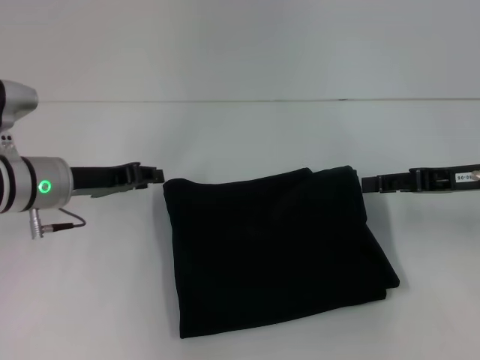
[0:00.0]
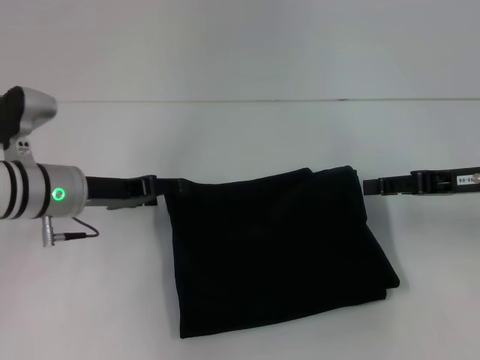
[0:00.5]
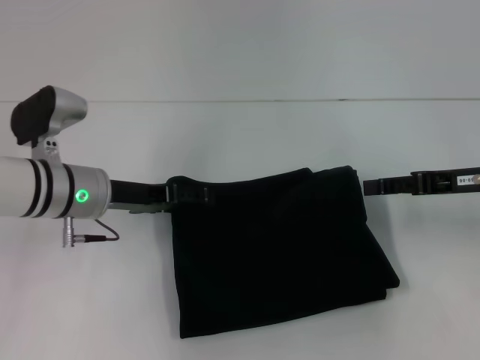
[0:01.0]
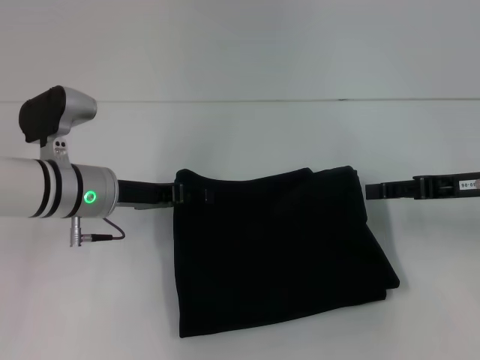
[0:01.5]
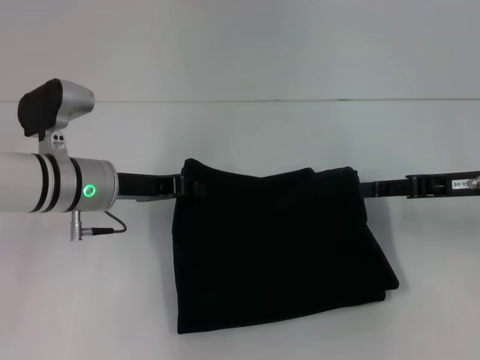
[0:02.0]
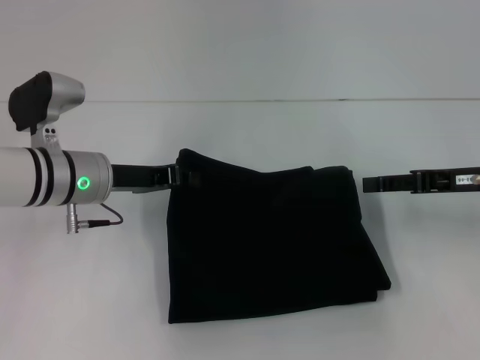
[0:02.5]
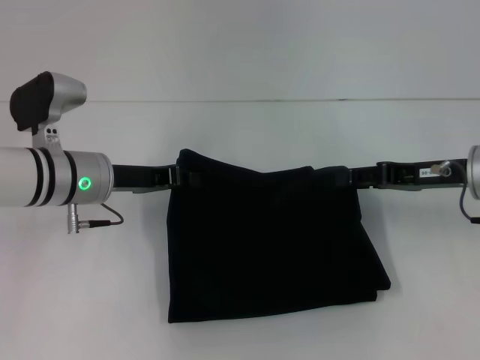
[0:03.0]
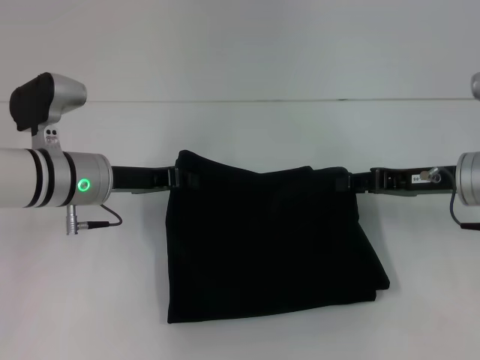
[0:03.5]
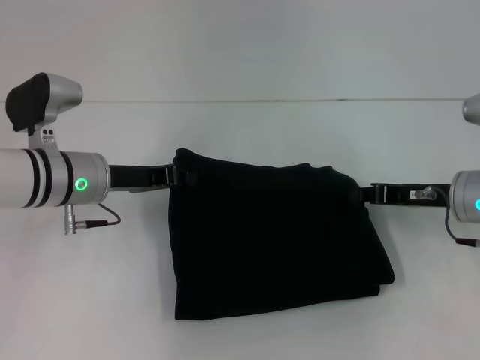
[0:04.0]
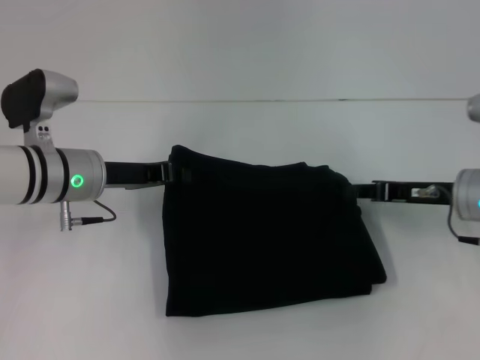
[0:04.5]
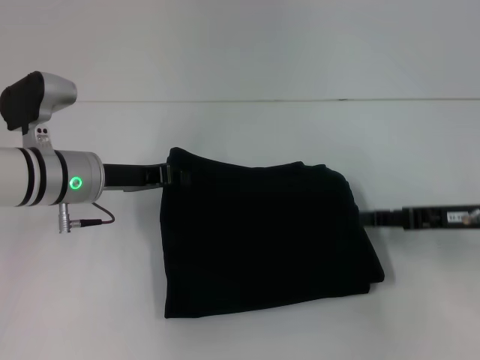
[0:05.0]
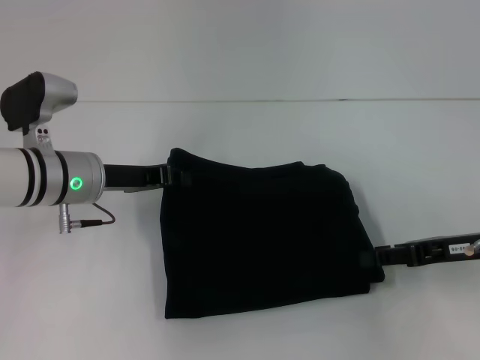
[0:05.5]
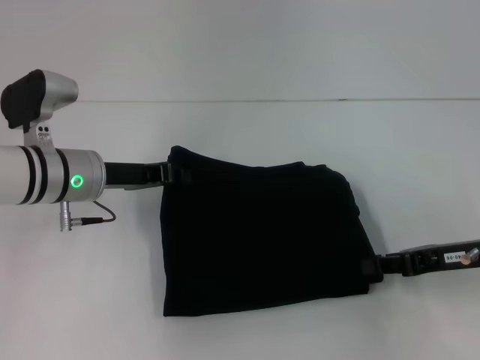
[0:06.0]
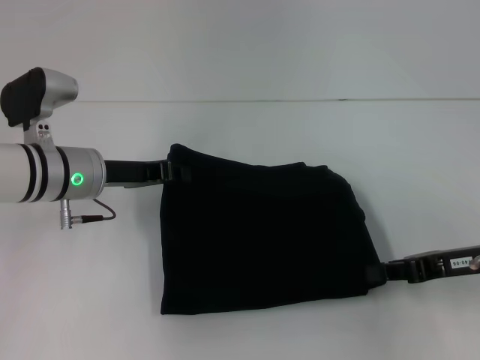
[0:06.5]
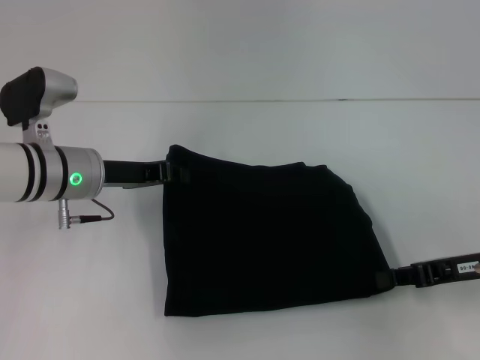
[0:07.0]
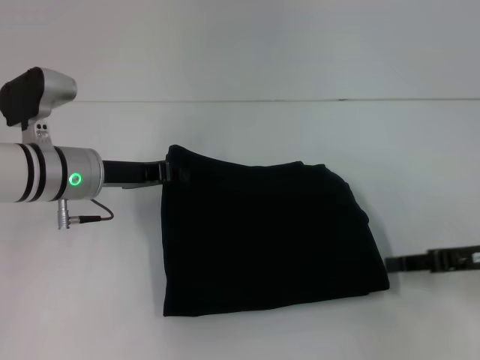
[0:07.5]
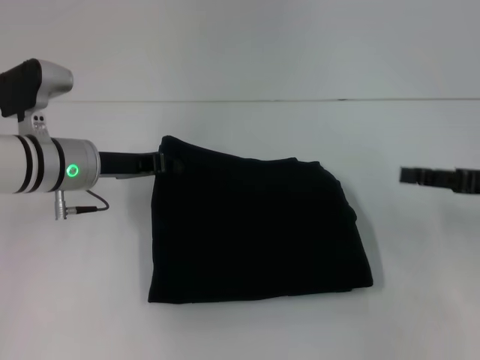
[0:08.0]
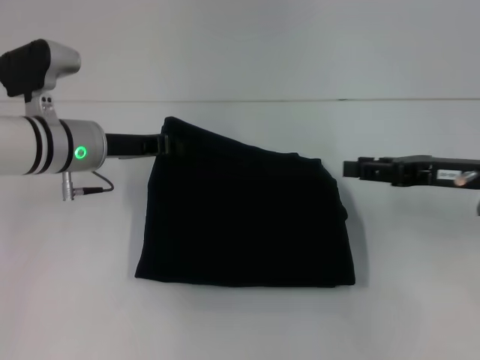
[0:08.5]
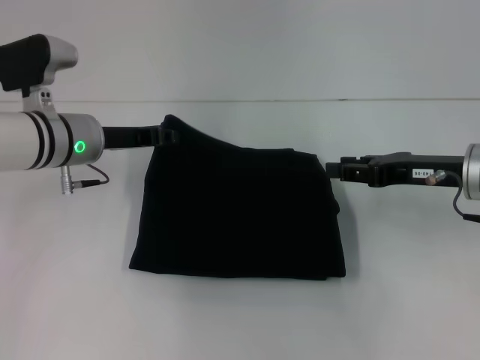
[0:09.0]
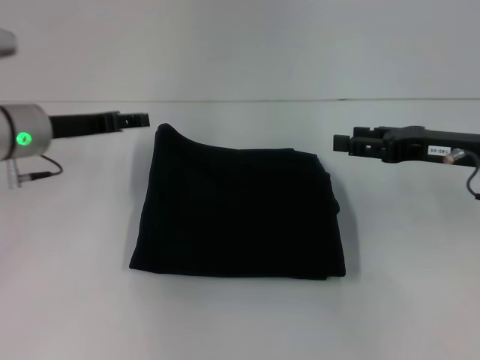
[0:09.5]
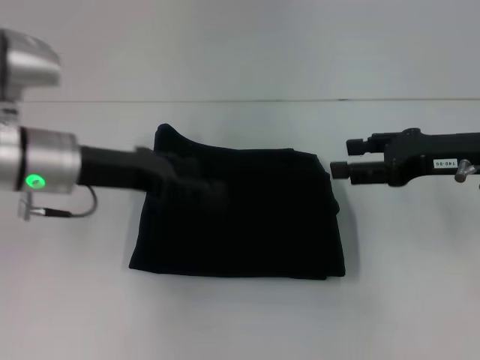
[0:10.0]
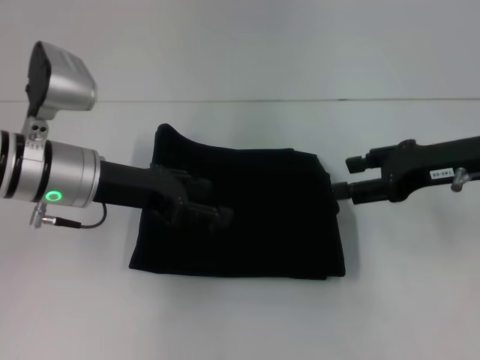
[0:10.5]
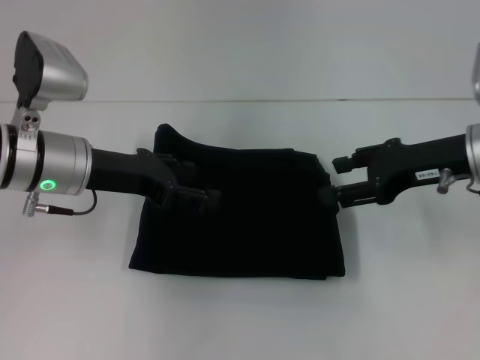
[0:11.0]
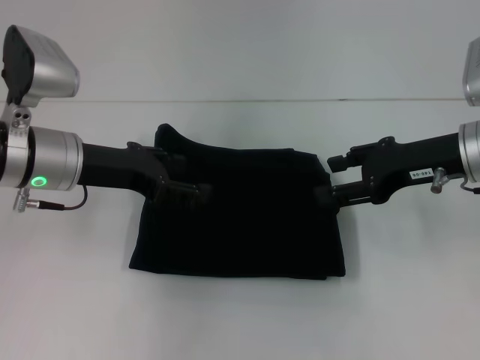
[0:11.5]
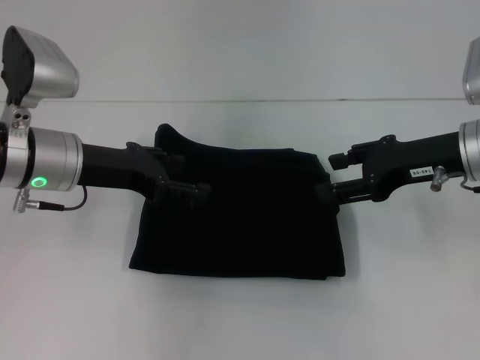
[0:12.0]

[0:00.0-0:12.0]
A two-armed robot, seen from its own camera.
0.0 to 2.0 s: The left gripper opens and closes again.
2.0 to 4.0 s: The right gripper changes place by roughly 5 cm, and closes its fingers.
4.0 to 6.0 s: The right gripper heads backward, covering some 5 cm.
6.0 to 8.0 s: The right gripper shifts by some 5 cm.
8.0 to 10.0 s: The right gripper is displaced to the left by approximately 5 cm. Meanwhile the left gripper goes approximately 5 cm upward, and opens its fingers.
10.0 to 12.0 s: The grippers stay close to where they were, moving slightly.

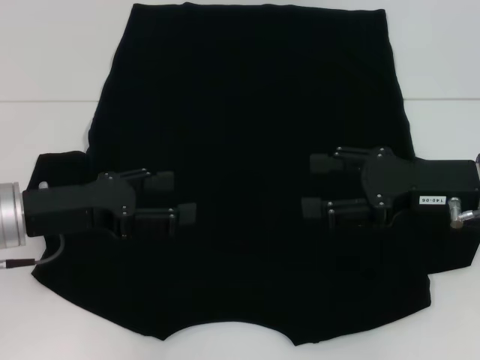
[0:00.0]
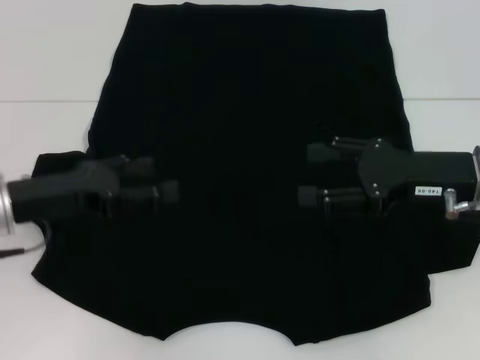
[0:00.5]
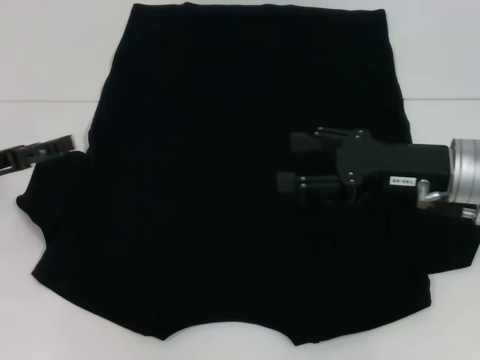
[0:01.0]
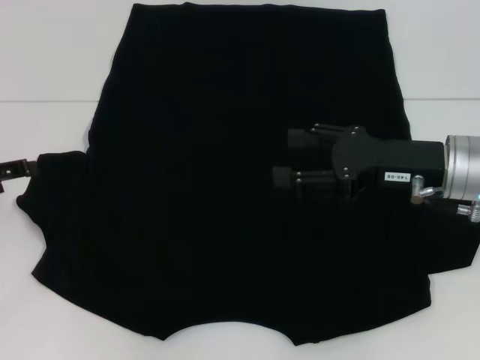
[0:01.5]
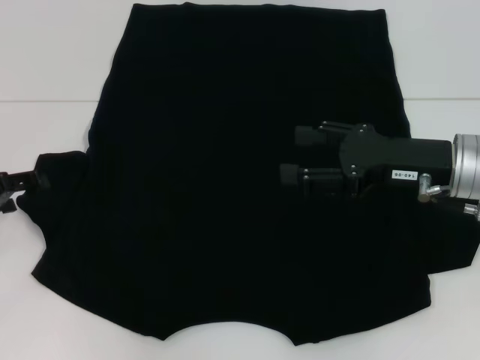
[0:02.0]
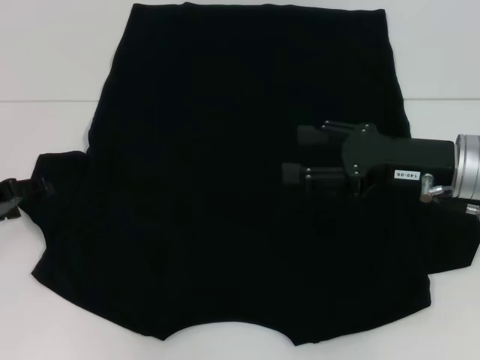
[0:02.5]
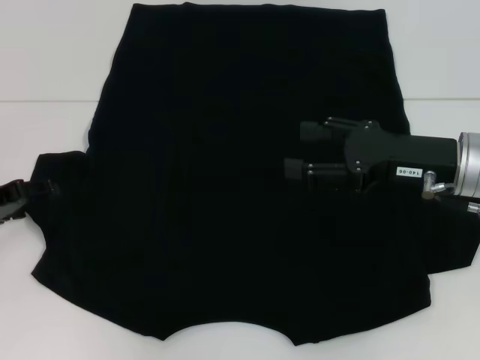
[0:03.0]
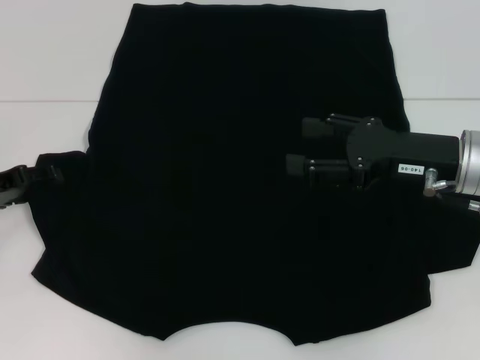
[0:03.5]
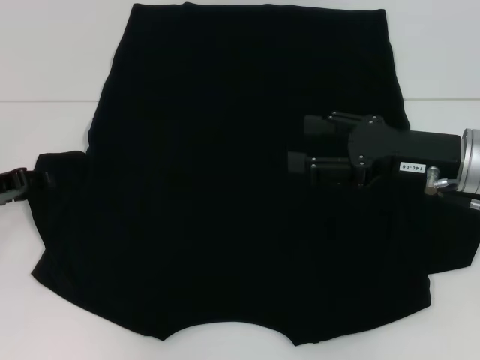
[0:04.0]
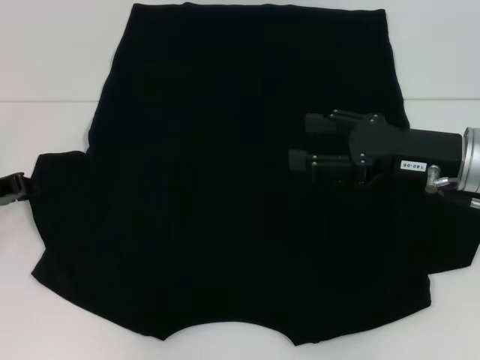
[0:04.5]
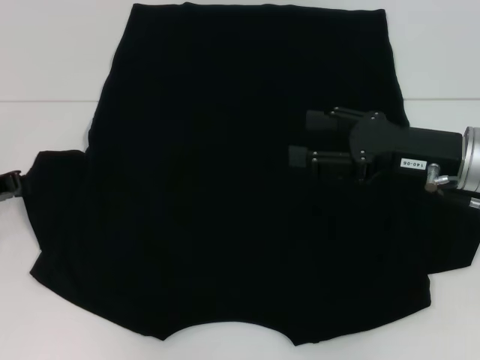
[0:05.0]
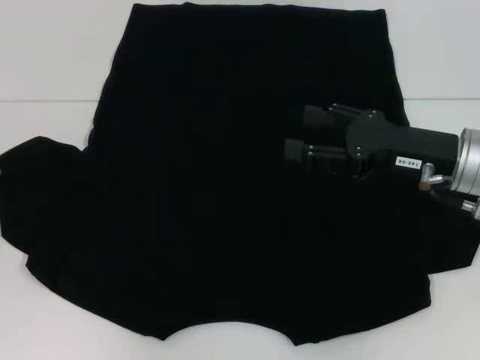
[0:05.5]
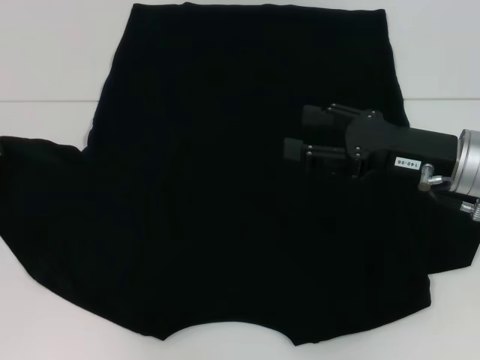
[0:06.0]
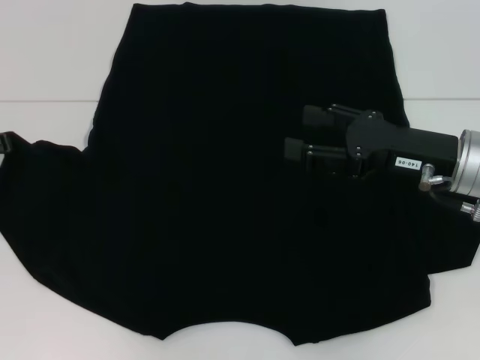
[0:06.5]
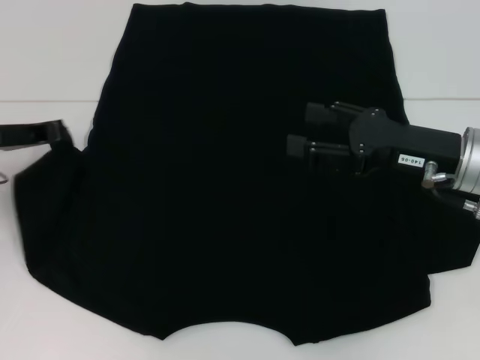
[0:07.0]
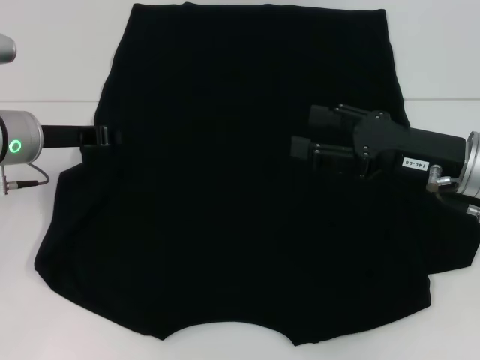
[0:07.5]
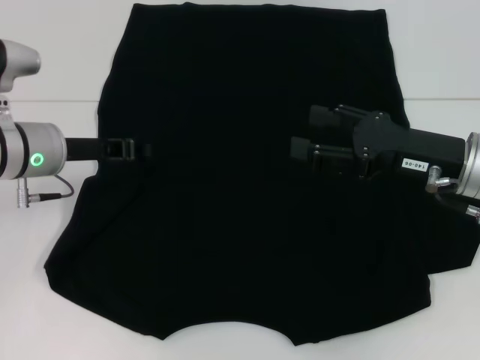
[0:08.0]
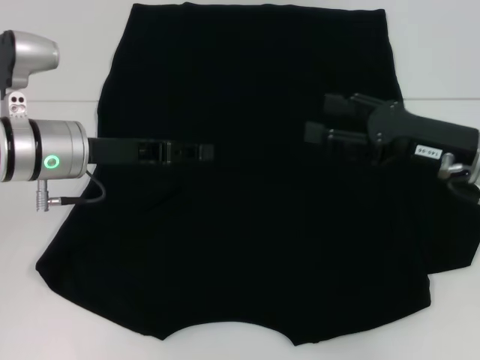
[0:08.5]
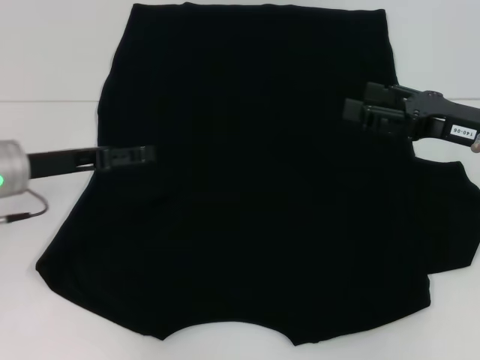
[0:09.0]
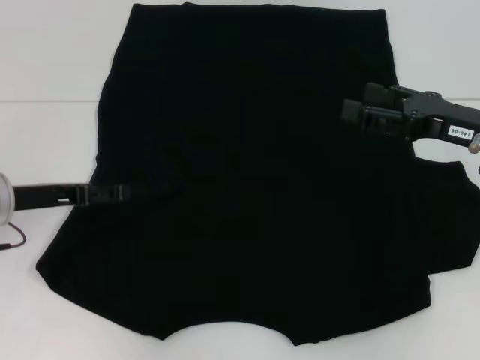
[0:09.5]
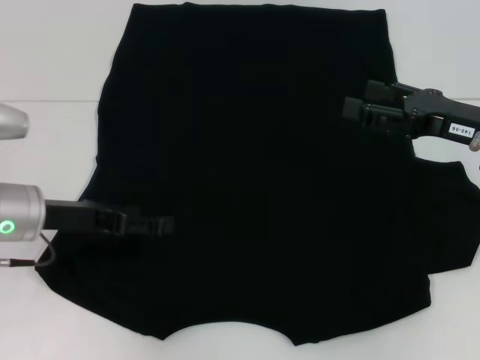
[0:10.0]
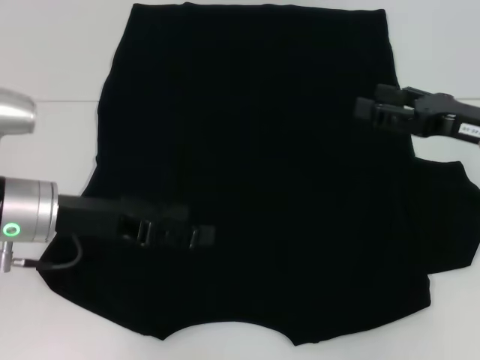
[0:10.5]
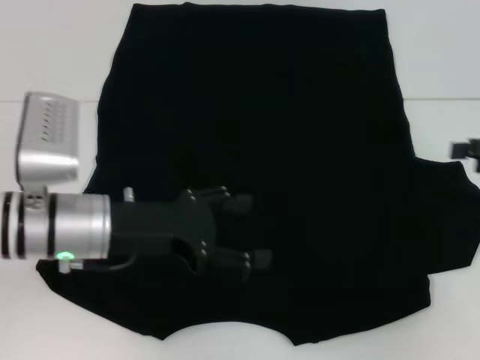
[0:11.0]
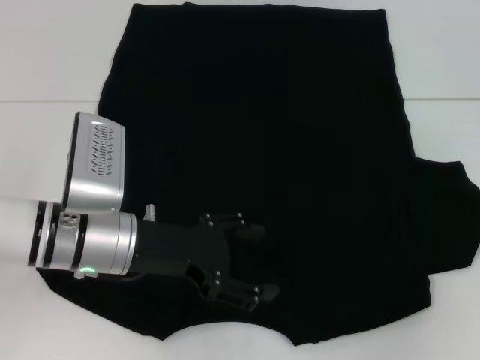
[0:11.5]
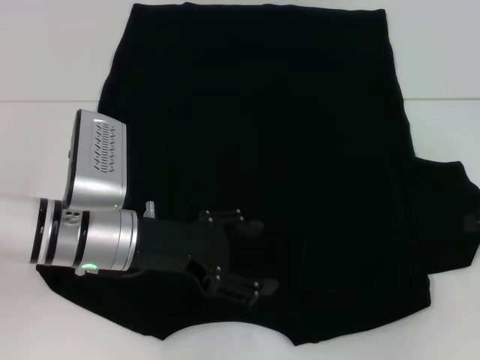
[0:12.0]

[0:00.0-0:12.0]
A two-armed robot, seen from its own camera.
Step, 0.0 to 8.5 s: Fold the bottom left sleeve with your left hand.
0.0 to 2.0 s: The left gripper moves to the left, roughly 10 cm.
2.0 to 4.0 s: The grippers make only small movements.
4.0 to 6.0 s: The left gripper closes.
6.0 to 8.0 s: The left gripper travels to the right by approximately 10 cm.
8.0 to 10.0 s: The left gripper moves backward, approximately 5 cm, and opens its fingers.
10.0 to 12.0 s: The grippers both shift to the right by about 10 cm.

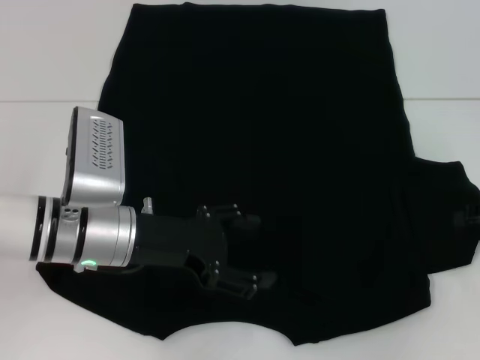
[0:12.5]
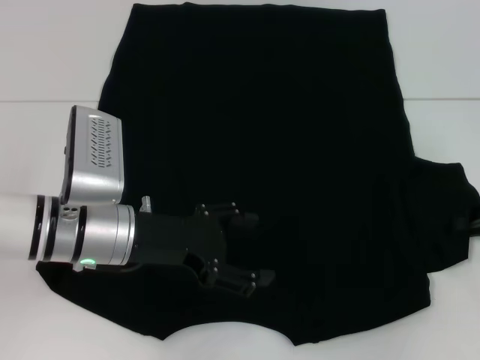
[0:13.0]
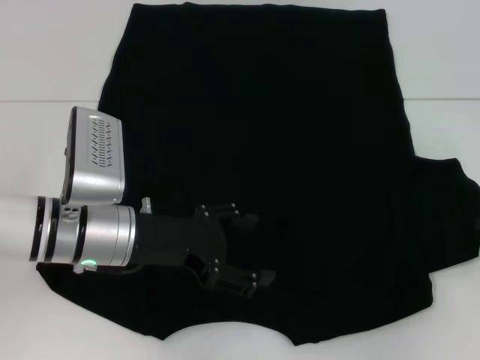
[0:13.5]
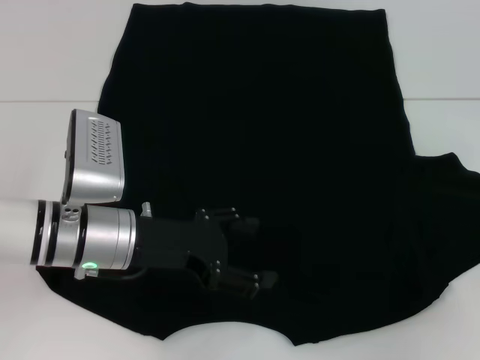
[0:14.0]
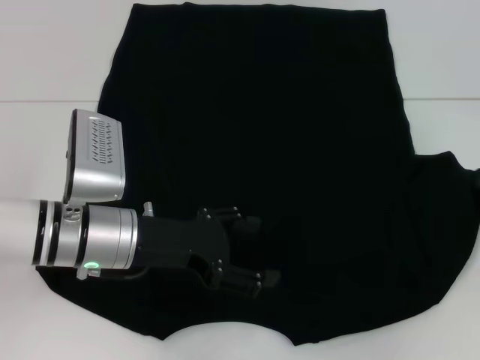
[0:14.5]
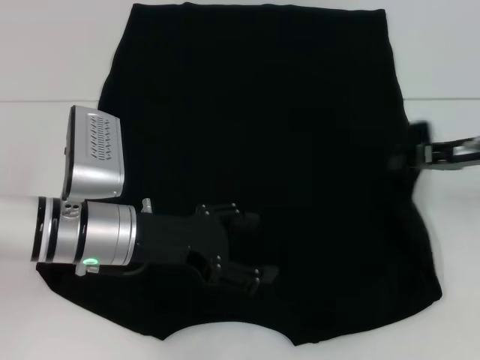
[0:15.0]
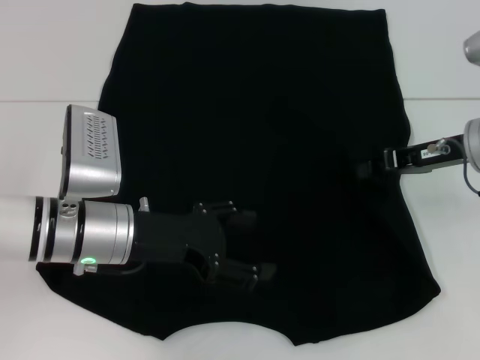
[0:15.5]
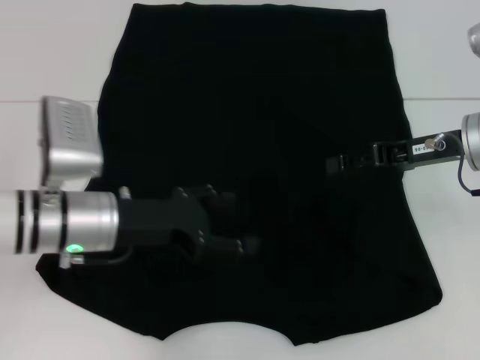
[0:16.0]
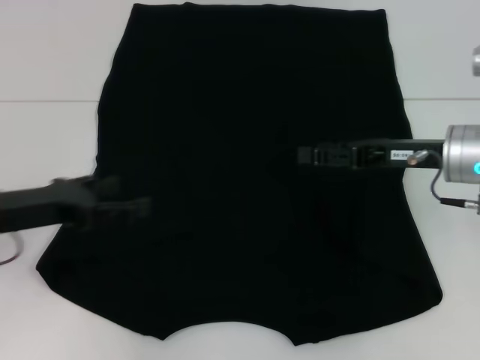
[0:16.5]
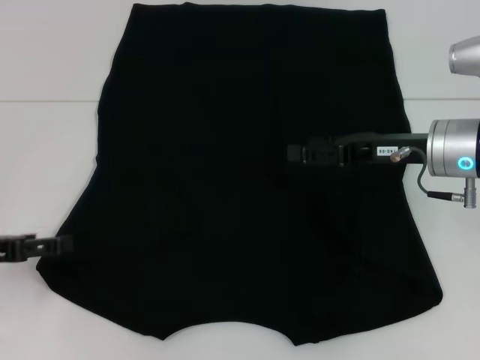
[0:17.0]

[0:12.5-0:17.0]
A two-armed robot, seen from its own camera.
Step, 12.5 to 15.5 s: Fold the bottom right sleeve with your right hand.
12.5 to 14.5 s: The right gripper closes.
14.5 to 17.0 s: Both grippers travel together to the left, approximately 15 cm. The right gripper opens up.
